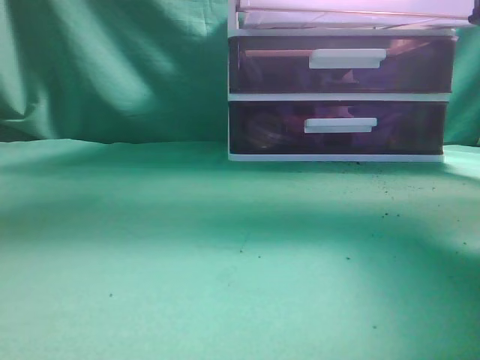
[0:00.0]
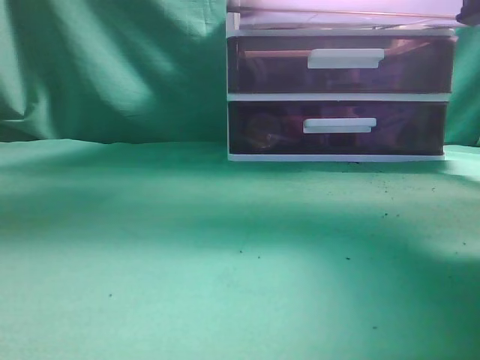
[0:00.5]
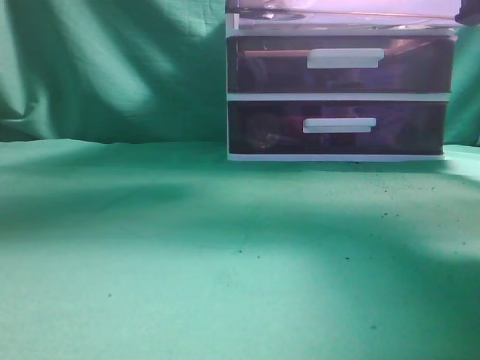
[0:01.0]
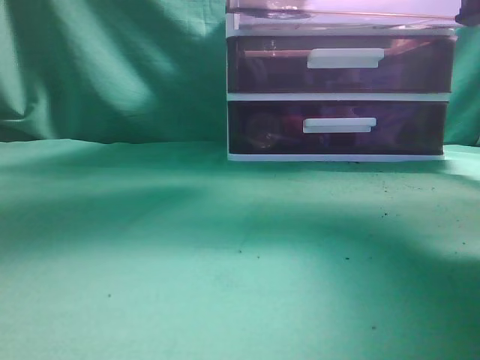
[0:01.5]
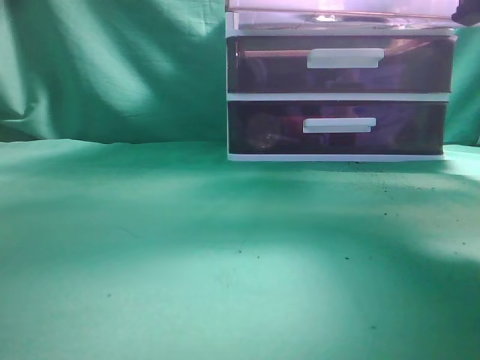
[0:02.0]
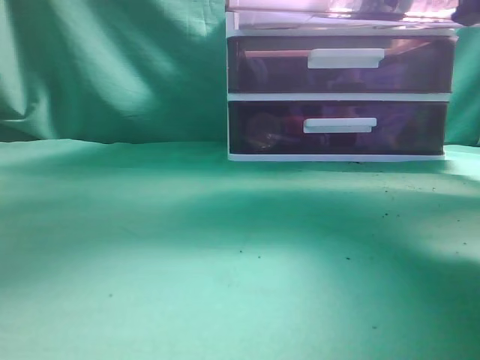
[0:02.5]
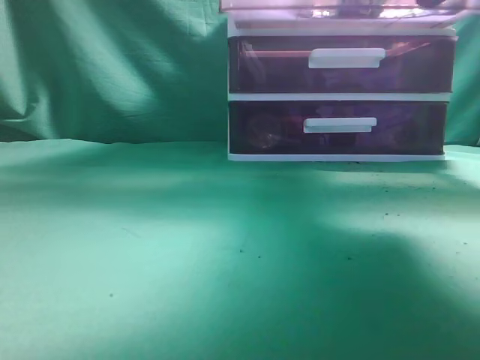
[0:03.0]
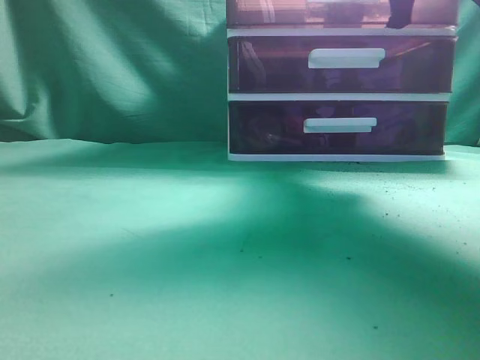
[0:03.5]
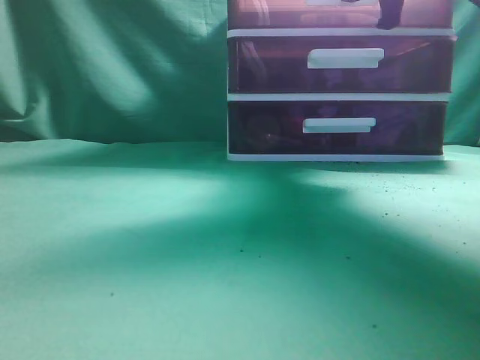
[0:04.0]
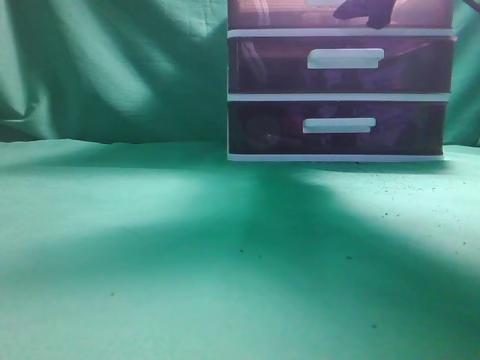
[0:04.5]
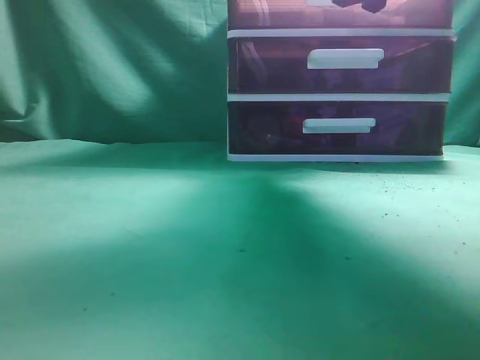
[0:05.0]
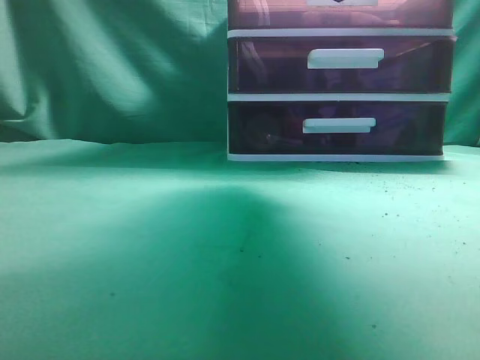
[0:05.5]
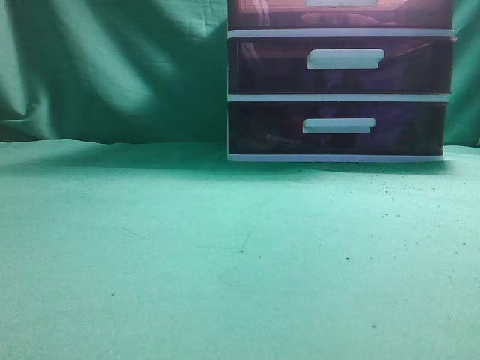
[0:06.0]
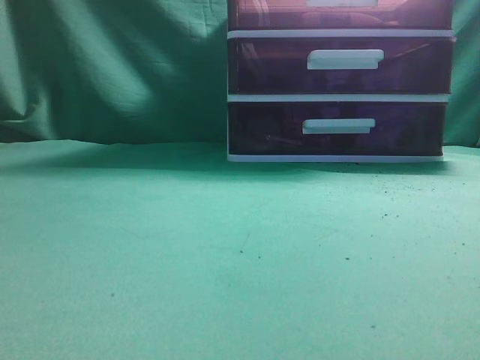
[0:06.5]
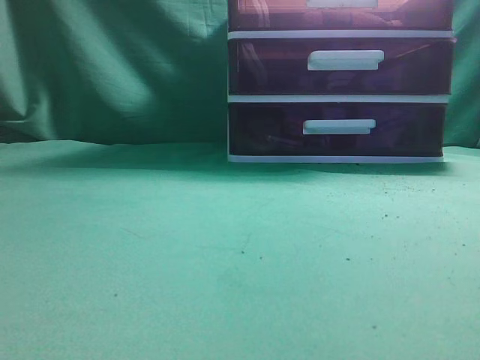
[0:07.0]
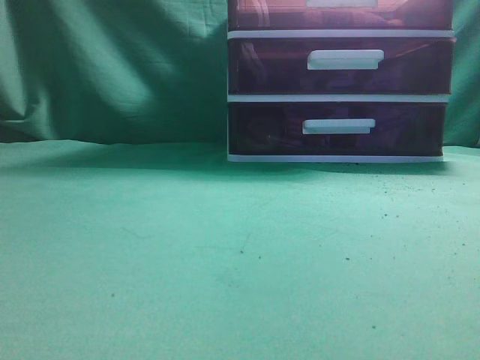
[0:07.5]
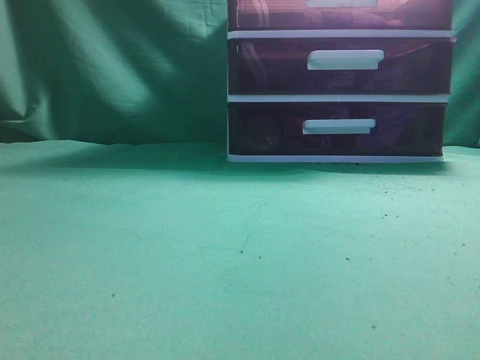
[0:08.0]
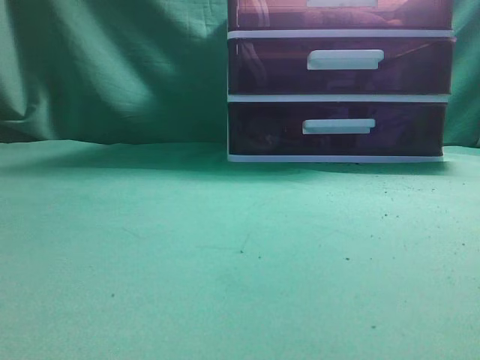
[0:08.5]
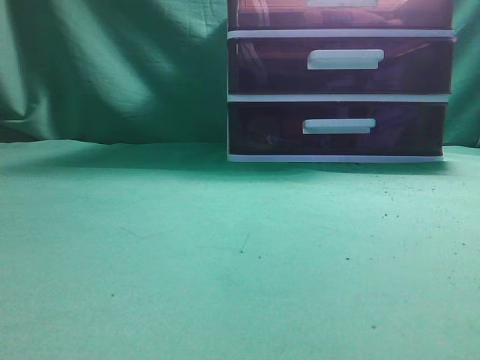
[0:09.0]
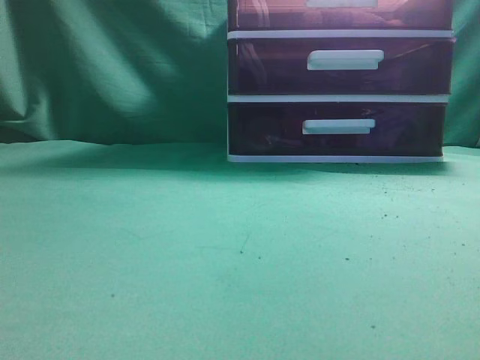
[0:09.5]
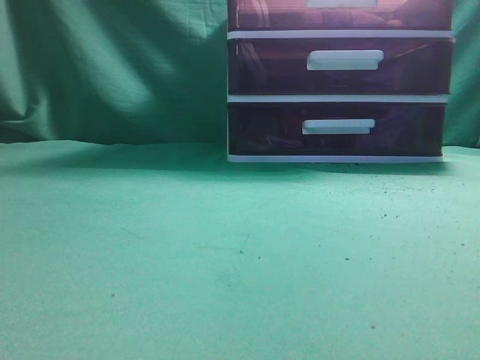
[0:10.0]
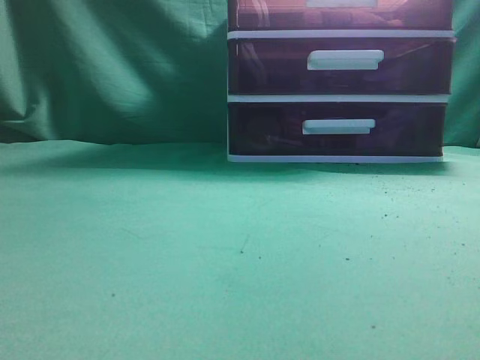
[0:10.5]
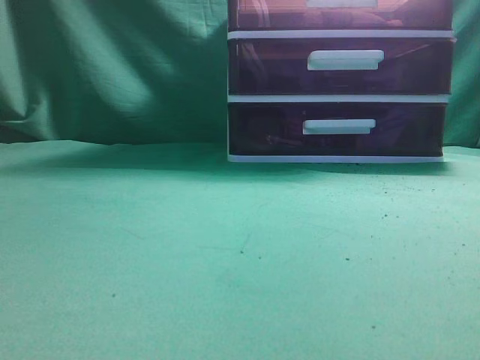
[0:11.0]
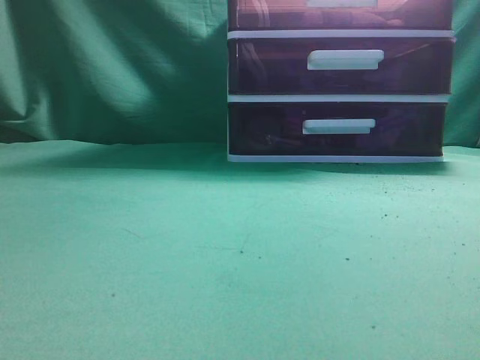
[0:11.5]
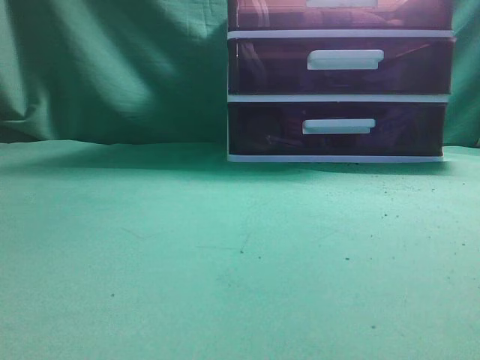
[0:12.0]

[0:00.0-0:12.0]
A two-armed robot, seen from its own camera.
Task of the whole recording: place the water bottle into the drawer.
Step, 0:00.0 to 0:02.0: Place the water bottle inside the drawer.
Step, 0:02.5 to 0:05.0: Close the drawer.
0:00.0 to 0:02.0: The left gripper goes about 20 cm to the right and downward, and opens up.
0:02.0 to 0:04.0: The right gripper heads forward, covering roughly 15 cm, while the left gripper is displaced to the left, upward and backward by some 30 cm, and closes up.
0:04.0 to 0:06.0: The left gripper shifts roughly 5 cm backward, while the right gripper travels backward and upward by about 15 cm, and opens, then closes again.
0:06.0 to 0:08.0: The right gripper shifts approximately 25 cm backward and downward.
